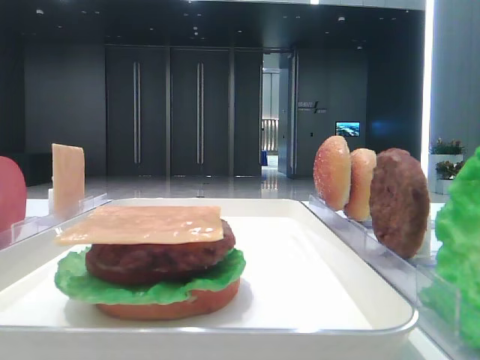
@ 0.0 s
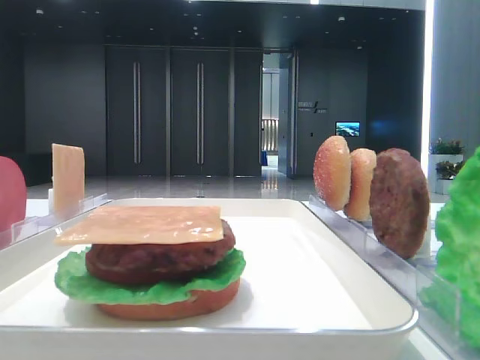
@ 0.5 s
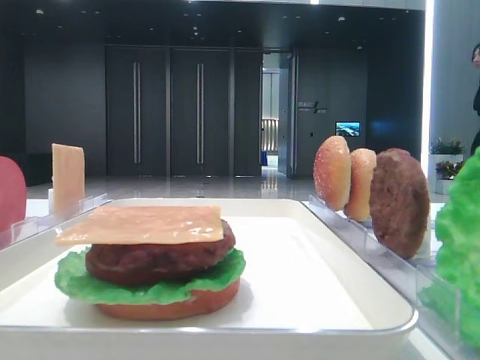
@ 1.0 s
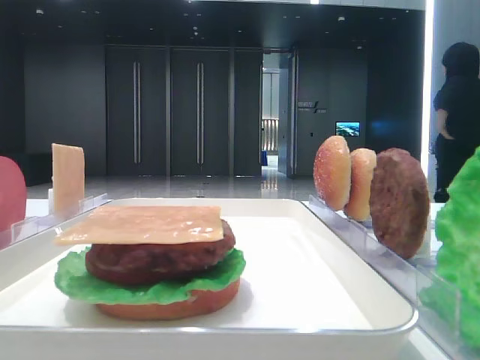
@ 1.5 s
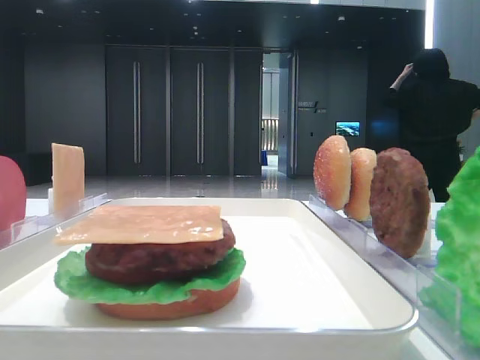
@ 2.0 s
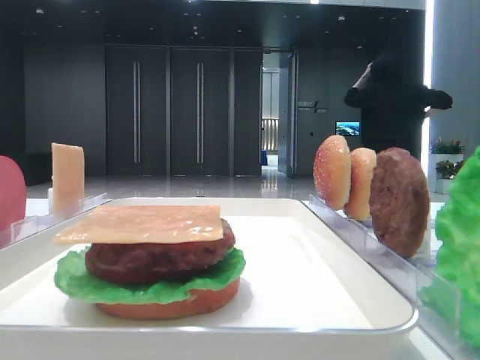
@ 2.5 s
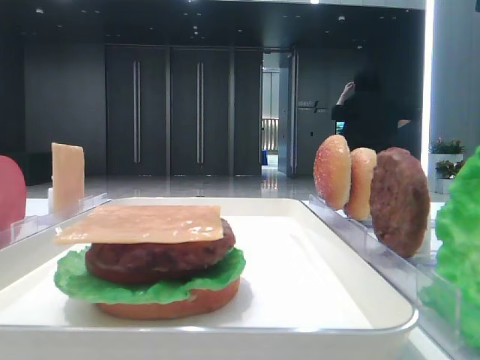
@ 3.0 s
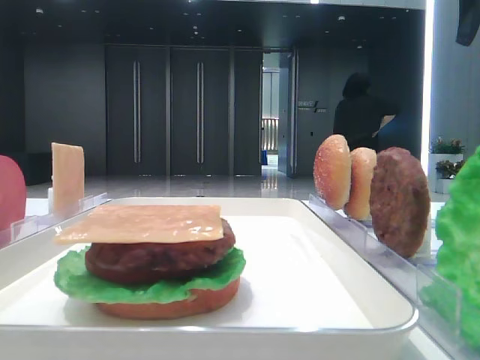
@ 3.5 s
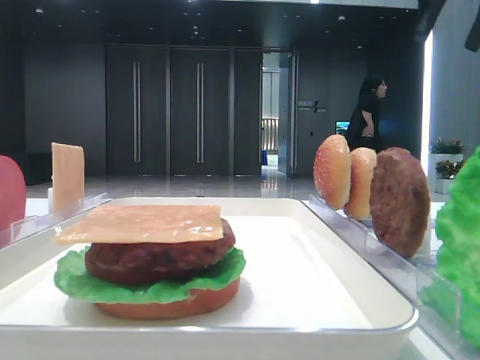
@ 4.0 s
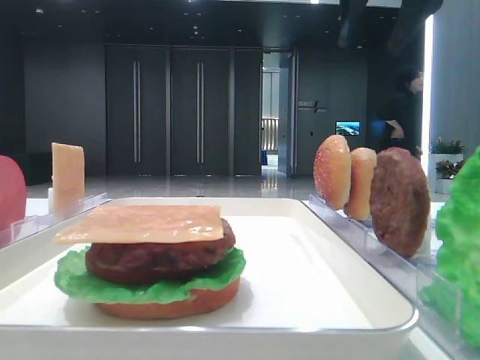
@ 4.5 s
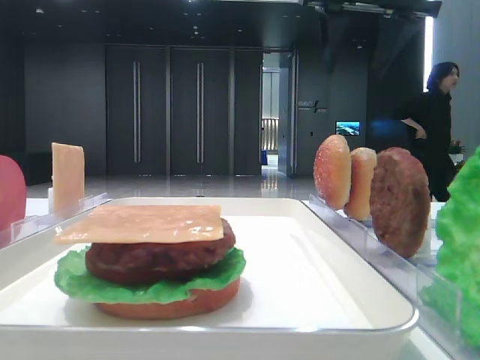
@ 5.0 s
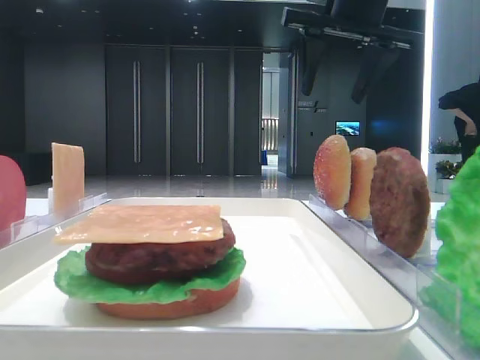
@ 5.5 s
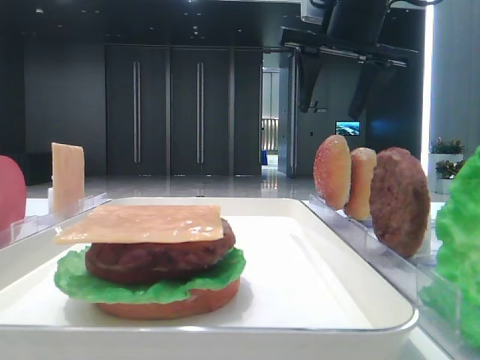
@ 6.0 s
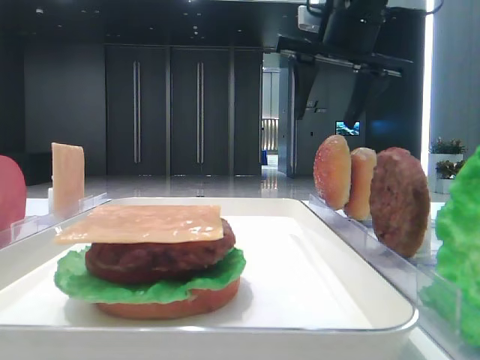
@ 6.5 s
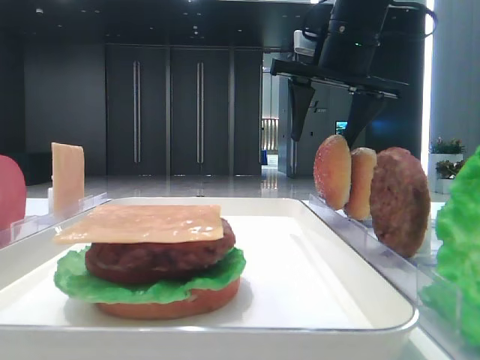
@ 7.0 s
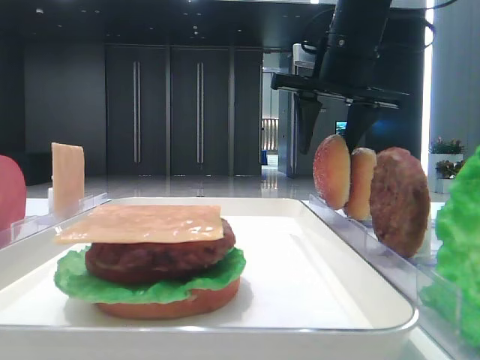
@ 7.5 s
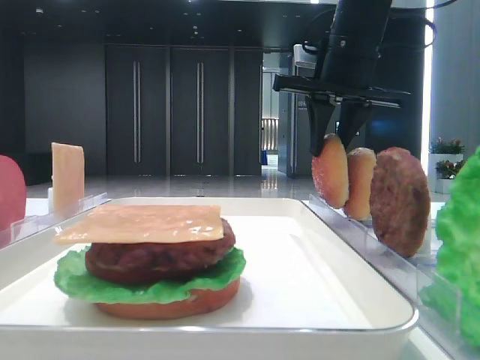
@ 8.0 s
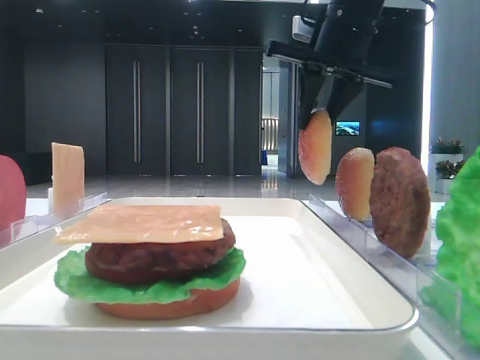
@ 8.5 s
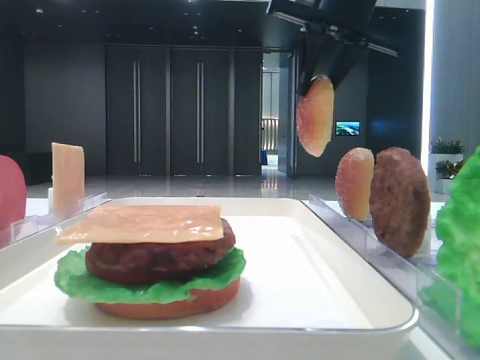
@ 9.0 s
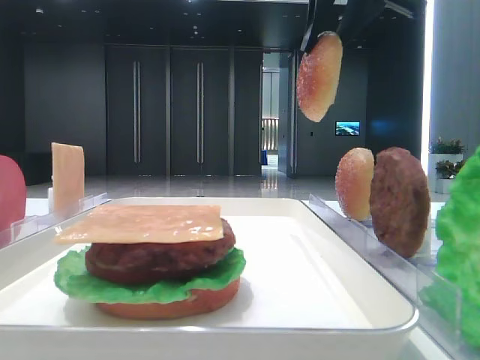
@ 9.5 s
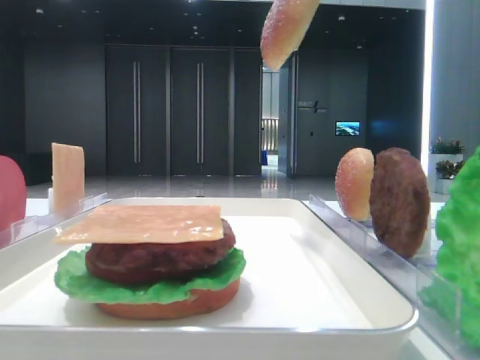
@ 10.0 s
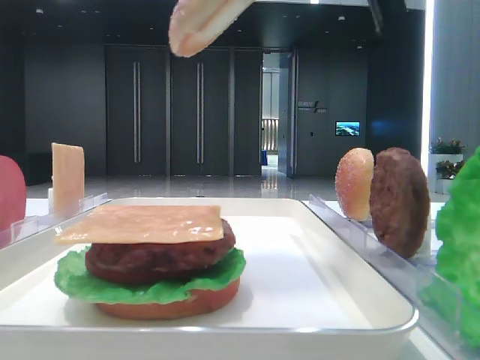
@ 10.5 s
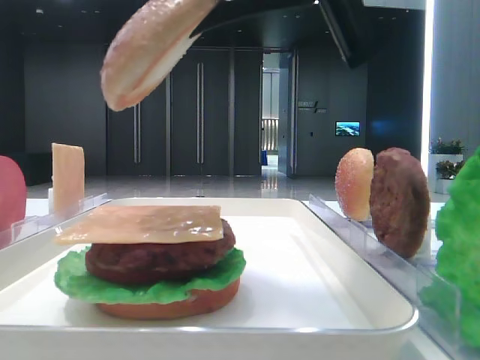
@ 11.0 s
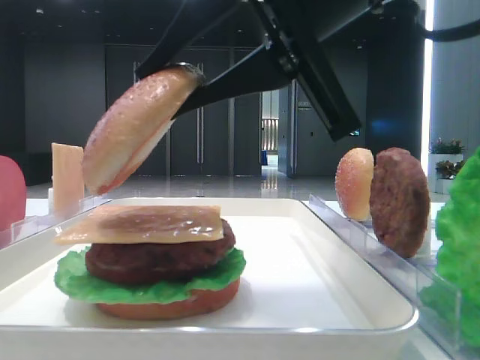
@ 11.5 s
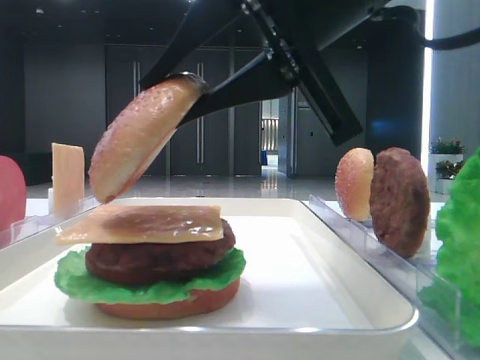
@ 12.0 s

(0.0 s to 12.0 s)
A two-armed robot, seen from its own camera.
Step, 0.0 s - 8.0 s: Pick up the top bread slice with the right hand.
2.0 s - 4.0 s: The right gripper travels forward by approximately 25 cm.
4.0 s - 6.0 s: The right gripper is displaced to the left and downward by approximately 15 cm.
6.0 s - 8.0 s: The right gripper closes.
8.0 s - 10.0 s: The right gripper is displaced backward and upward by roughly 20 cm.
10.0 s - 12.0 s: The right gripper goes about 20 cm downward, backward and to the left.

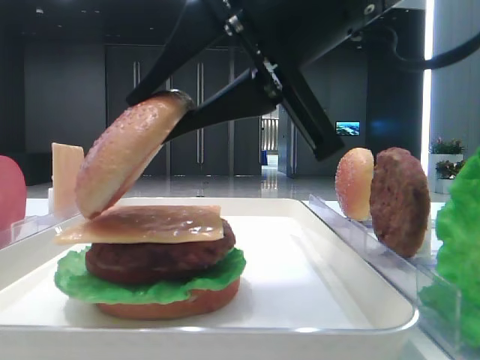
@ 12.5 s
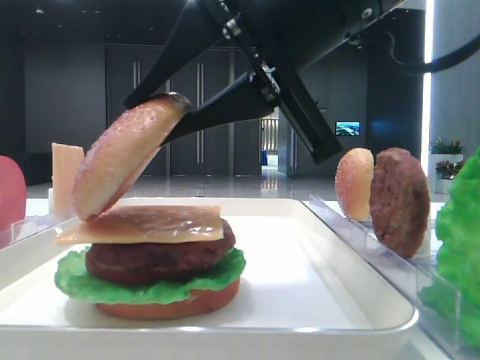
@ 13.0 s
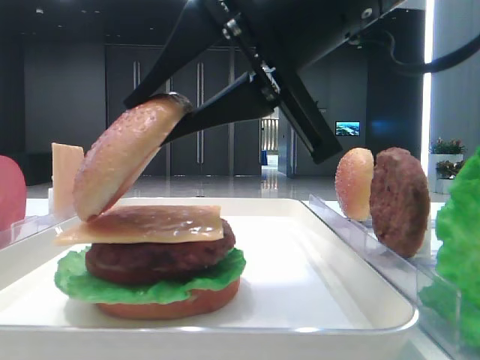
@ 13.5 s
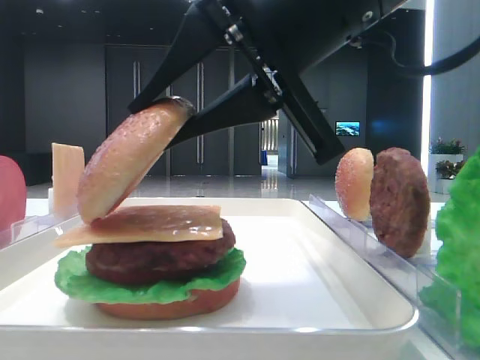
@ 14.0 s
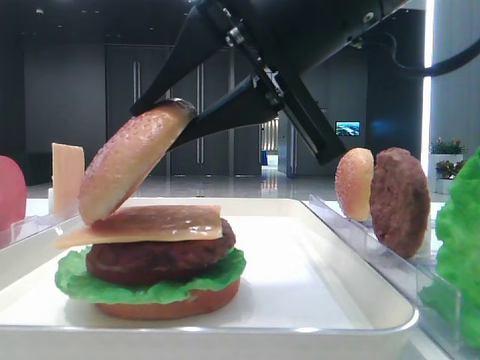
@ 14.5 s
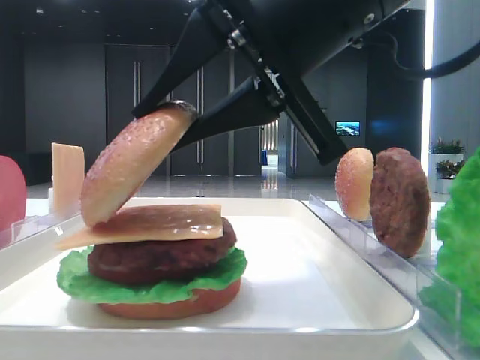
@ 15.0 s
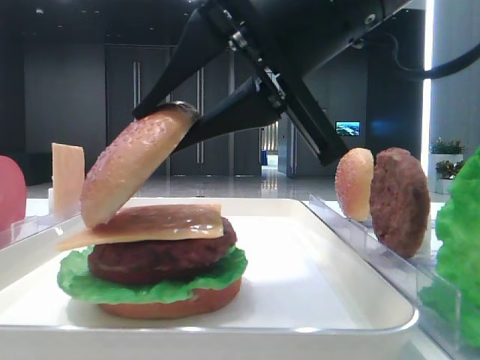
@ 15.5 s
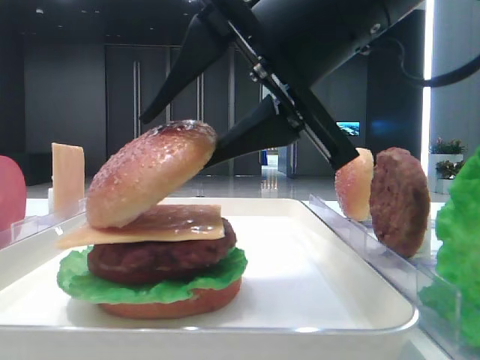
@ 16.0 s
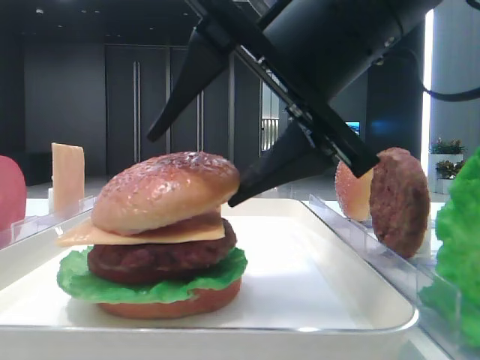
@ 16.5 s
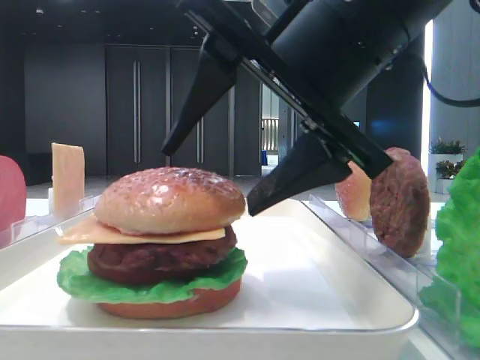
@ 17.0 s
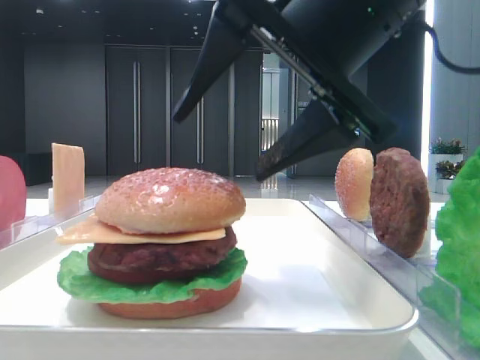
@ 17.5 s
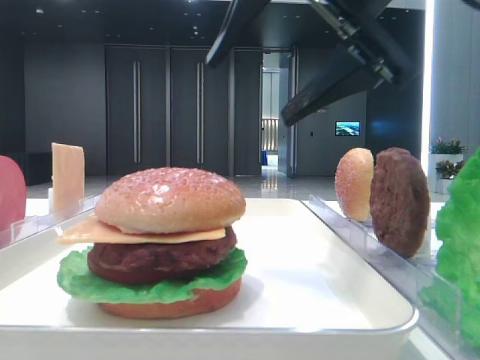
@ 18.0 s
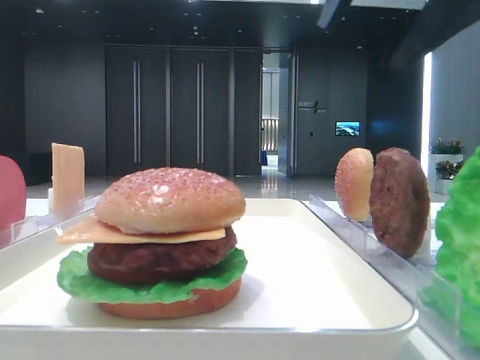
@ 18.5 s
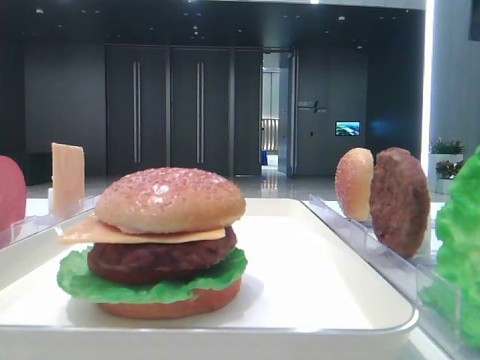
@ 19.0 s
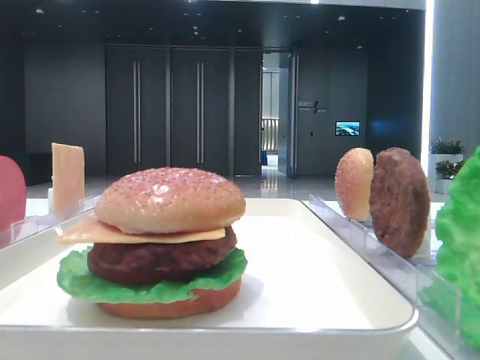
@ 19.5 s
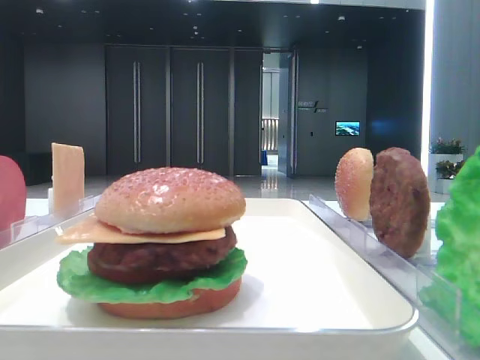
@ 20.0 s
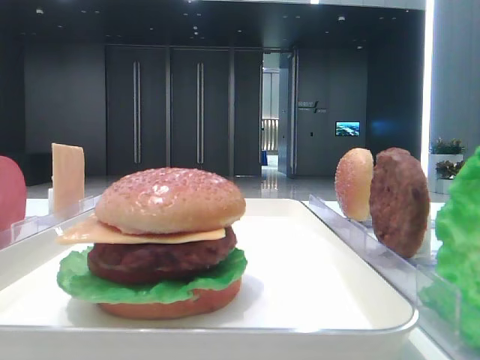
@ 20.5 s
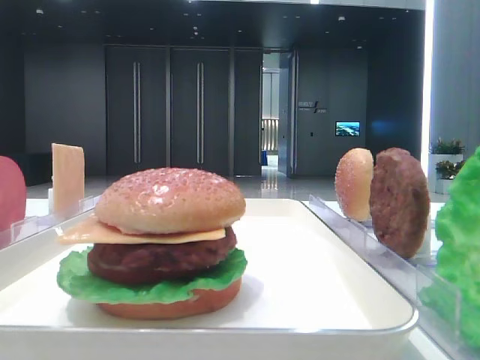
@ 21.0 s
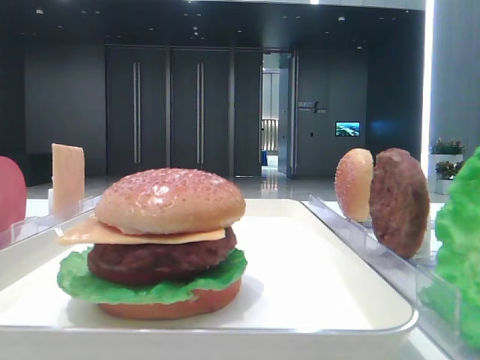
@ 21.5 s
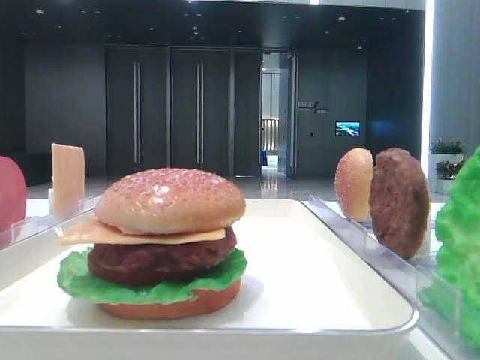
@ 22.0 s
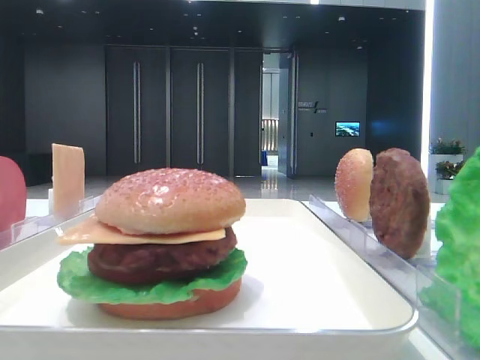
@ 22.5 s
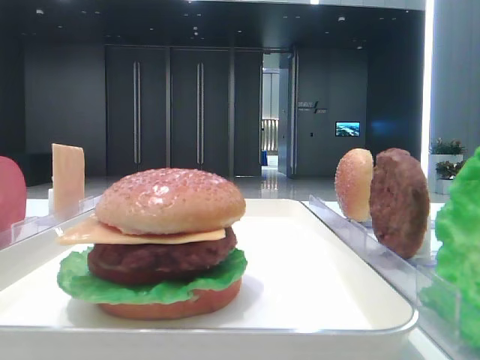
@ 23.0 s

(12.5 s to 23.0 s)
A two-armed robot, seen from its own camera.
Step, 12.5 s - 17.5 s: Place the top bread slice on the cheese with the right hand.
12.5 s - 14.5 s: The two grippers keep their place.
14.5 s - 16.5 s: The right gripper opens up.
16.5 s - 19.0 s: The right gripper shifts about 20 cm to the right and upward.

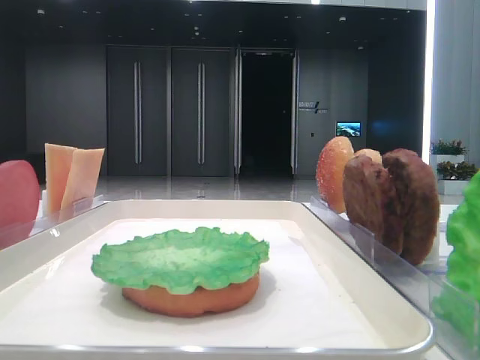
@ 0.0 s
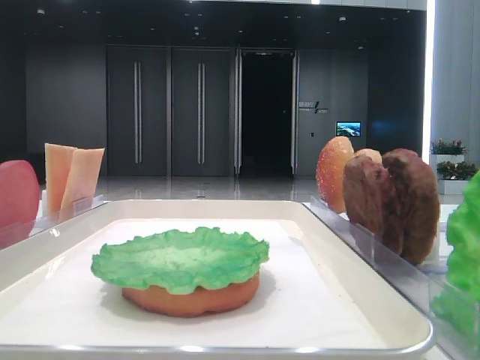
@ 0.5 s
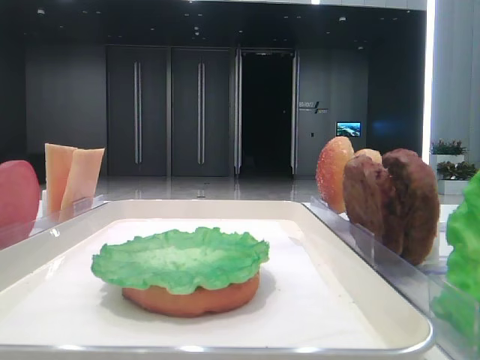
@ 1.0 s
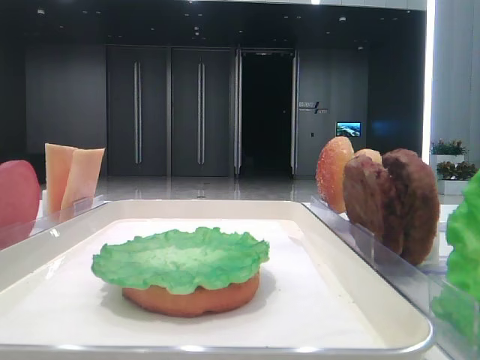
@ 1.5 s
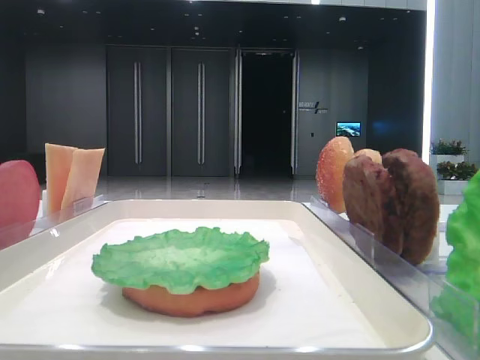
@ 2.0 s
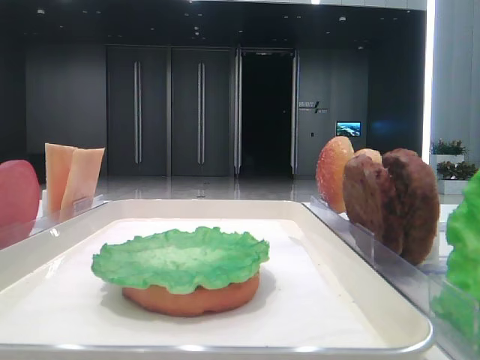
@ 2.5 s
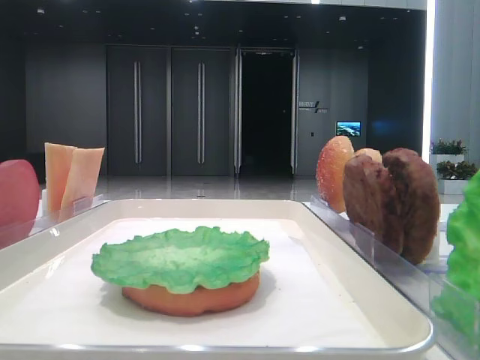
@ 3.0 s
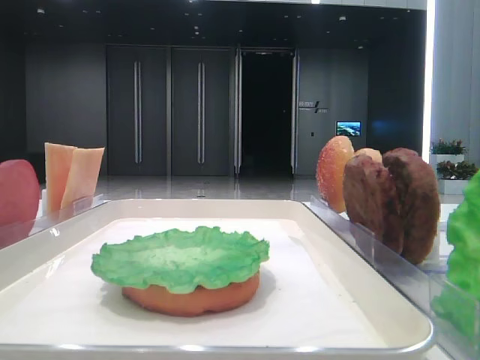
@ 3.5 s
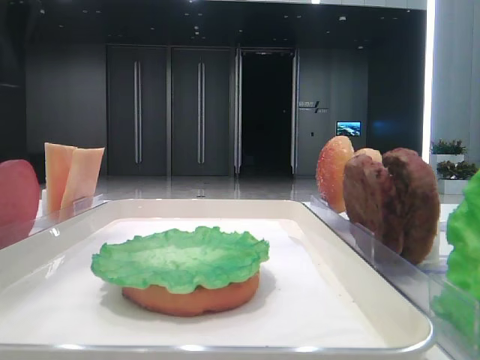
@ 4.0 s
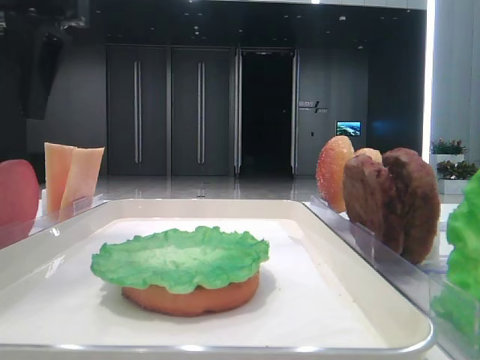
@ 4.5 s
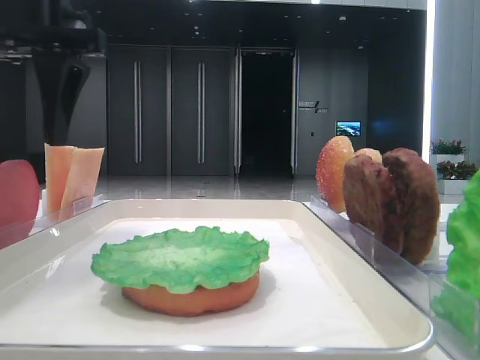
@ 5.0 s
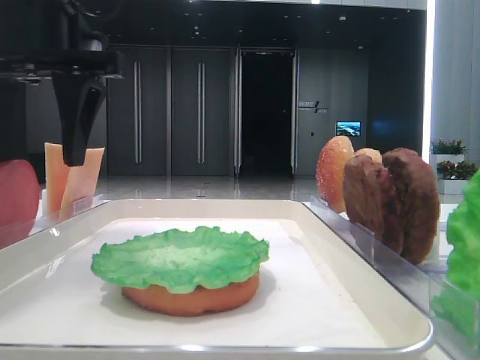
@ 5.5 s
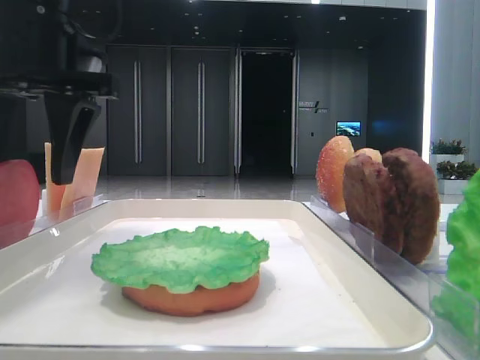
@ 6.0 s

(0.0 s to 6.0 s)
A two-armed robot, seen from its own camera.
2.0 s - 4.0 s: The left gripper travels forward and to the right by some 20 cm.
4.0 s - 6.0 s: The left gripper shifts some 10 cm downward.
